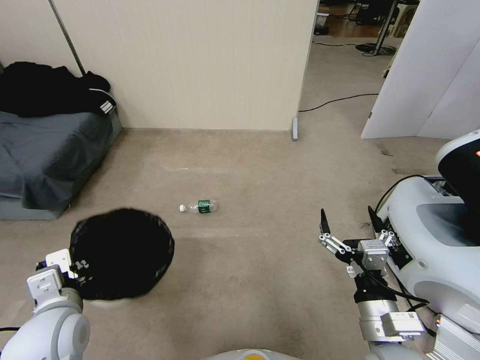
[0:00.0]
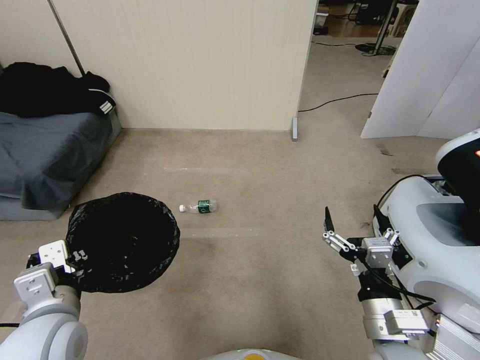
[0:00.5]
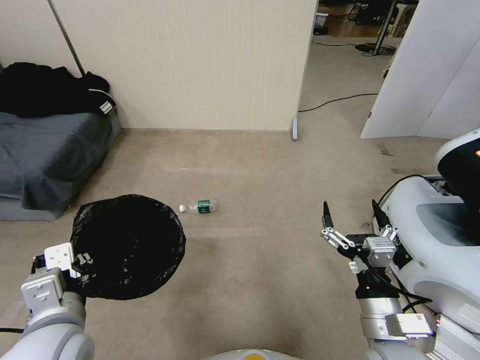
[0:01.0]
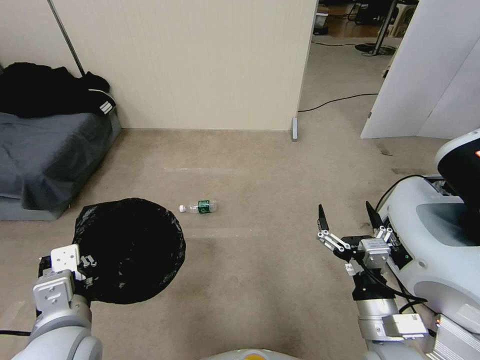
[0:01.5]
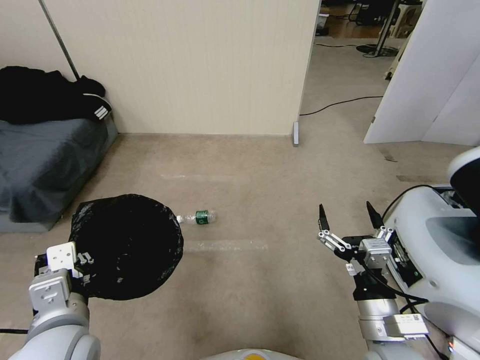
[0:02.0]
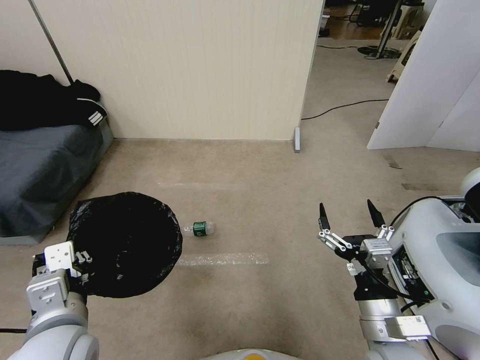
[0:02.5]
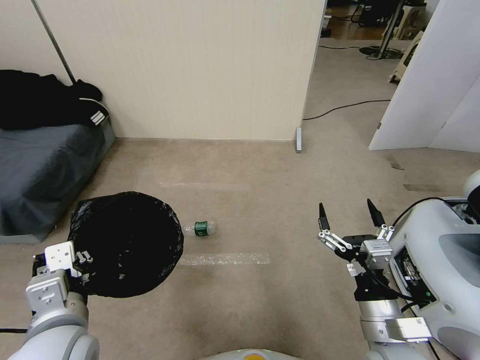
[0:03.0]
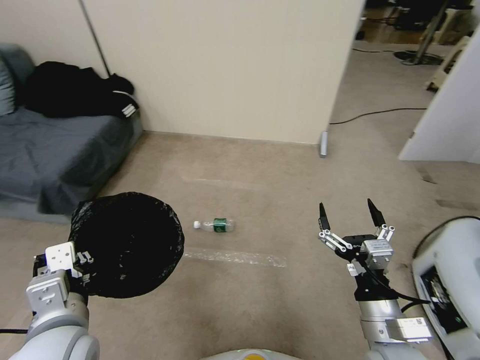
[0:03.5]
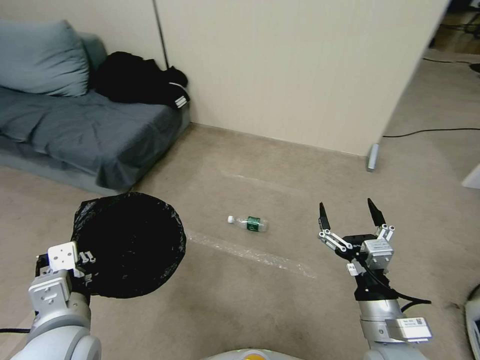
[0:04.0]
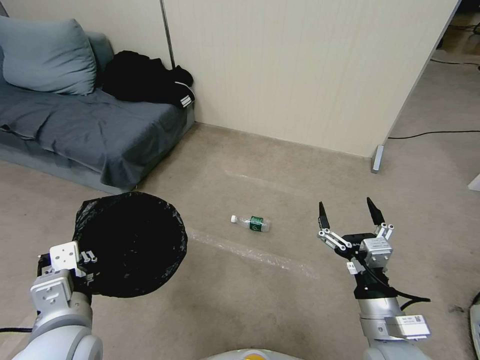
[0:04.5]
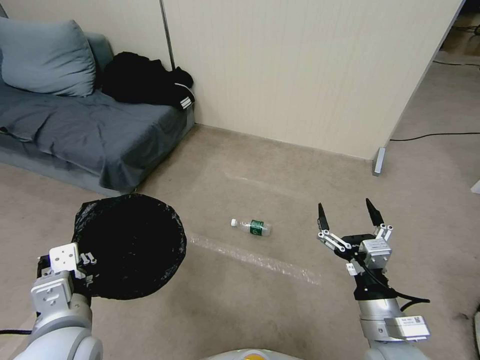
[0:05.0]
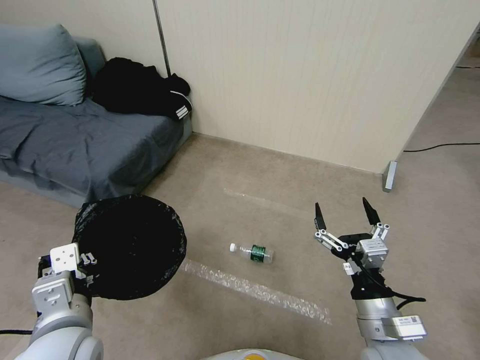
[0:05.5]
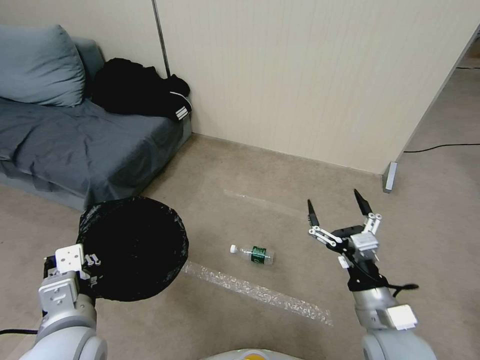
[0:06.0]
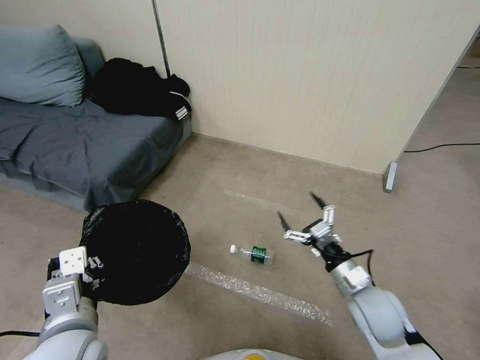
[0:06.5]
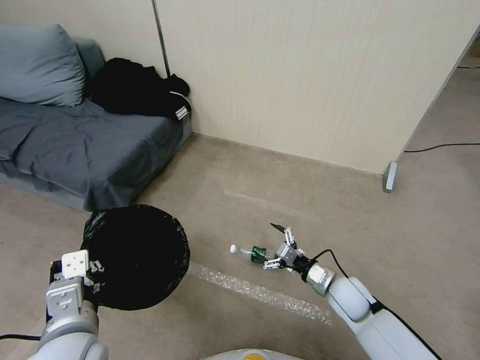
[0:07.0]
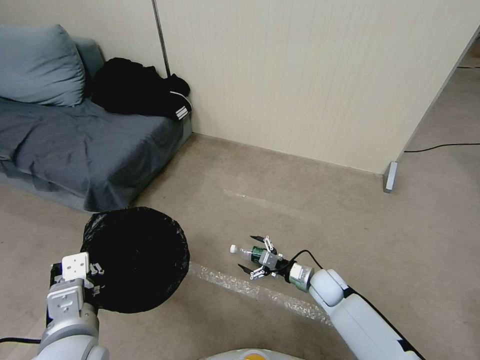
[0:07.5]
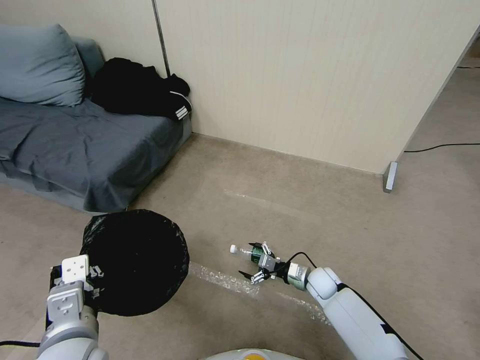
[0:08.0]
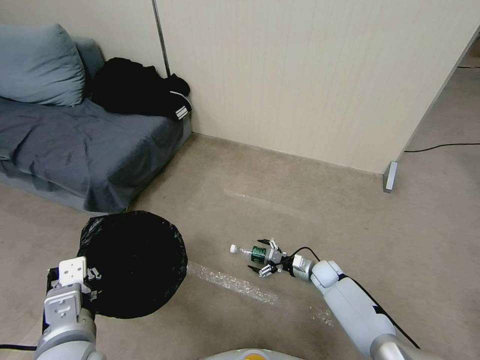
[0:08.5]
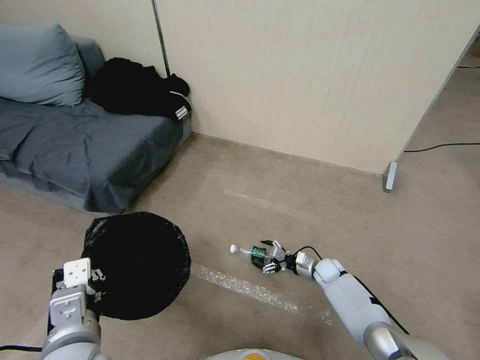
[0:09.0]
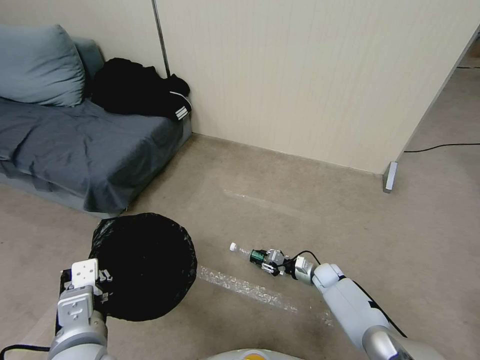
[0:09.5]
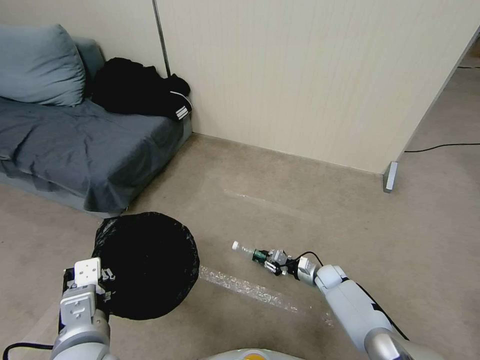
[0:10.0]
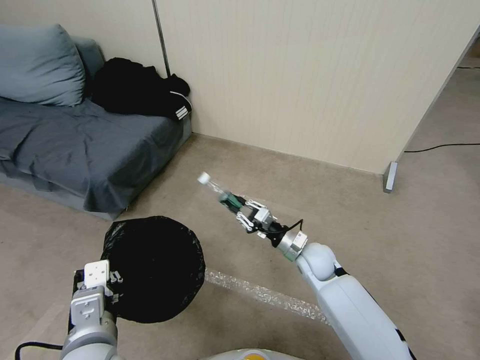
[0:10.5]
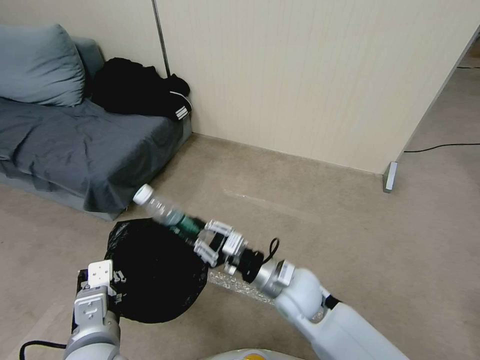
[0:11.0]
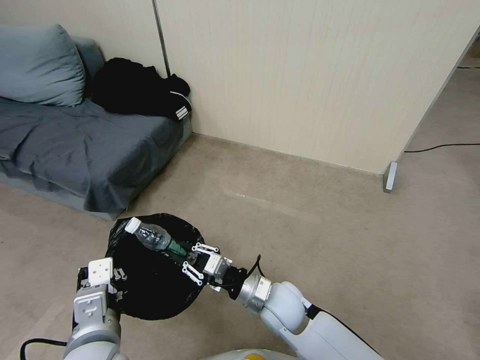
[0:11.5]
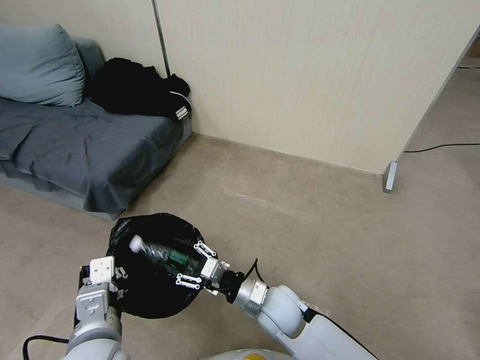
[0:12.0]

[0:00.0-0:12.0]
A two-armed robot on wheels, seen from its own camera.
Task of the whole recording: Pick up the trash bin, then pick up the garbage from the floor and place it into the trash bin.
0:00.0 to 0:02.0: The left gripper goes roughly 5 cm to the right.
0:06.0 to 0:08.0: The right gripper goes roughly 30 cm downward and forward.
0:08.0 to 0:10.0: The right gripper changes place by roughly 5 cm, and closes its fingers.
0:10.0 to 0:12.0: The right gripper travels to the left, upward and backward by about 30 cm, and opens its fingers.

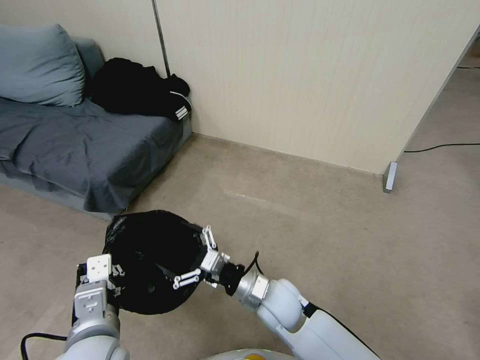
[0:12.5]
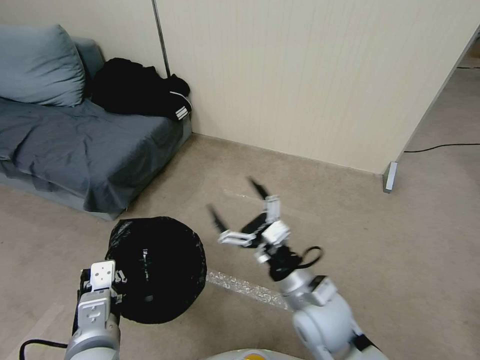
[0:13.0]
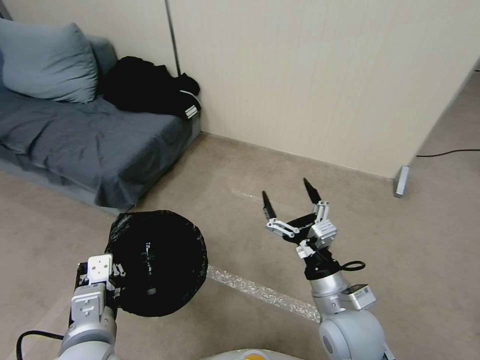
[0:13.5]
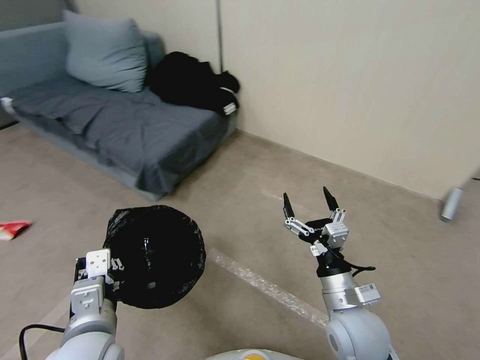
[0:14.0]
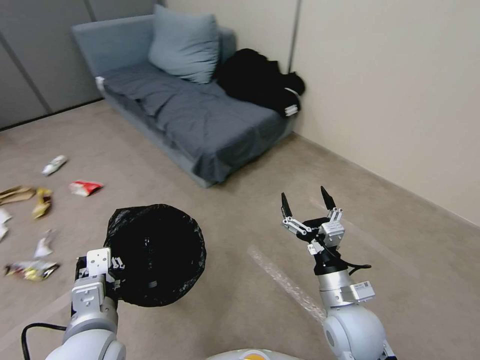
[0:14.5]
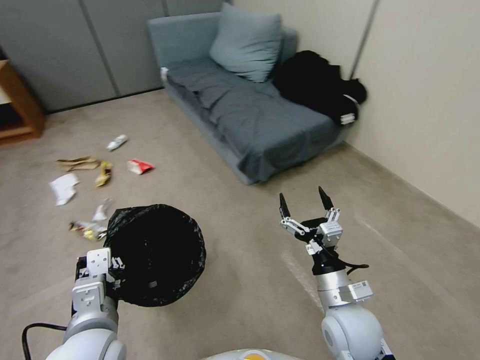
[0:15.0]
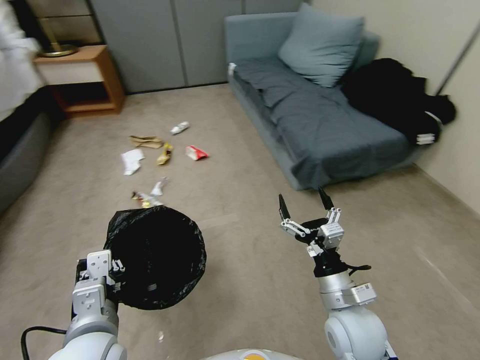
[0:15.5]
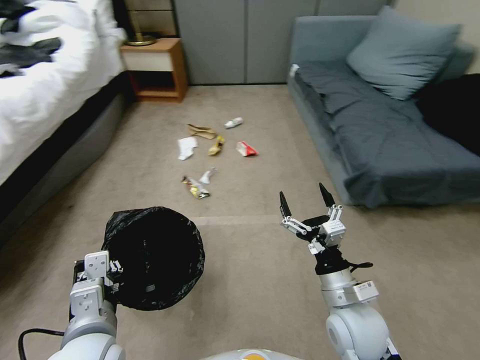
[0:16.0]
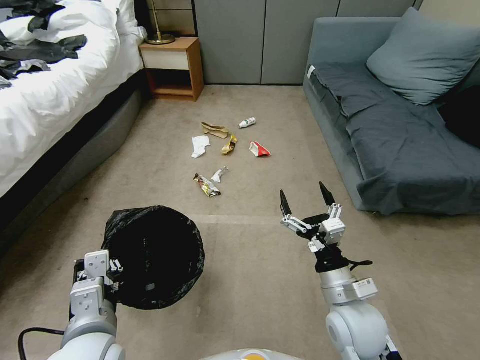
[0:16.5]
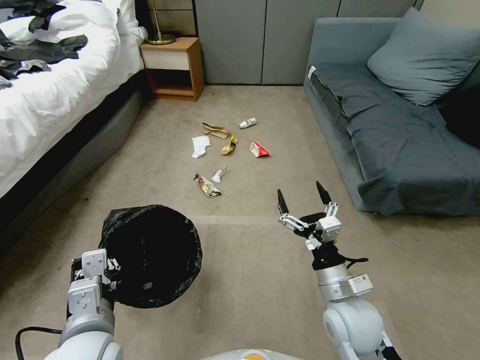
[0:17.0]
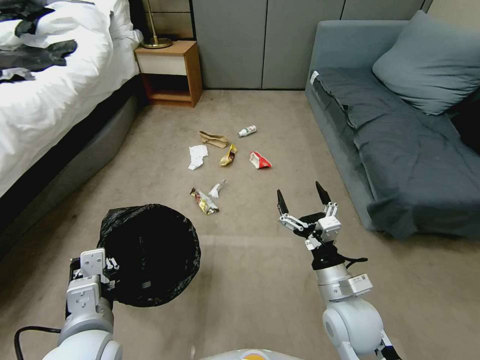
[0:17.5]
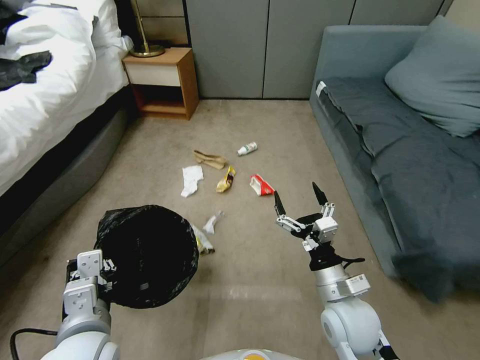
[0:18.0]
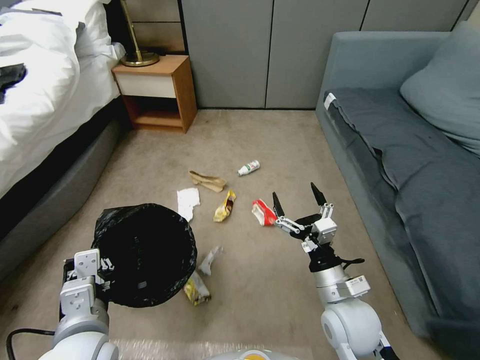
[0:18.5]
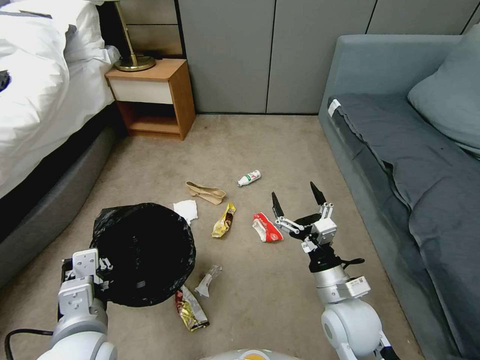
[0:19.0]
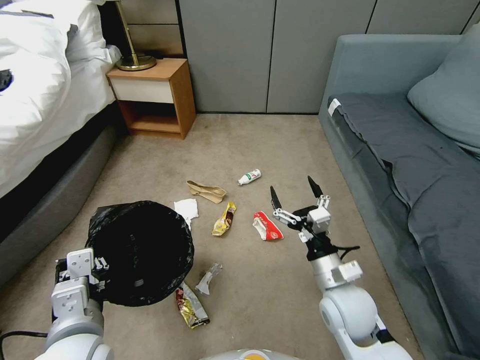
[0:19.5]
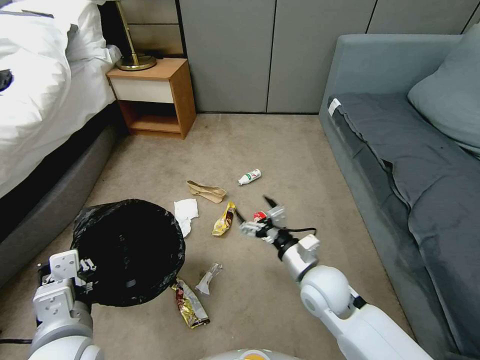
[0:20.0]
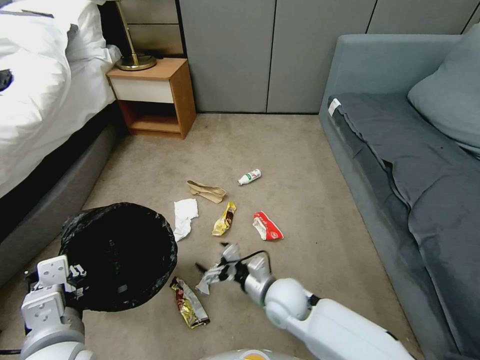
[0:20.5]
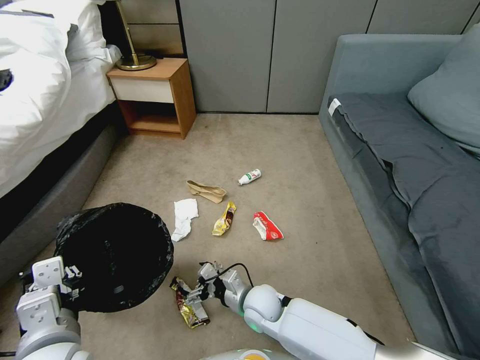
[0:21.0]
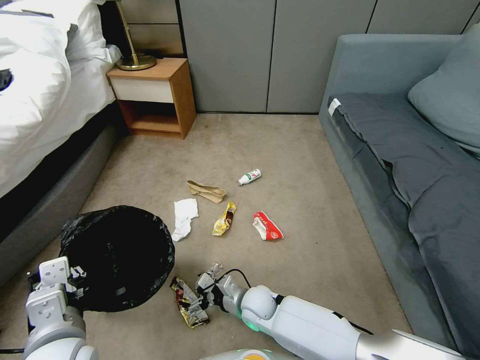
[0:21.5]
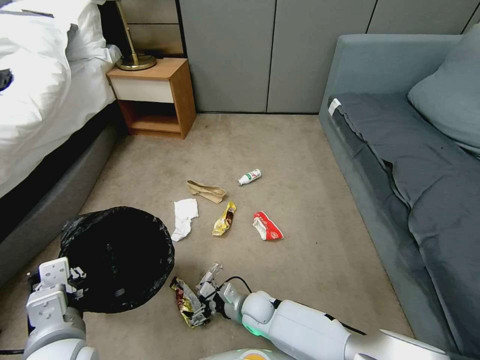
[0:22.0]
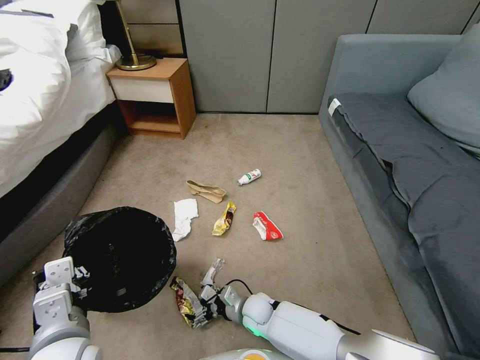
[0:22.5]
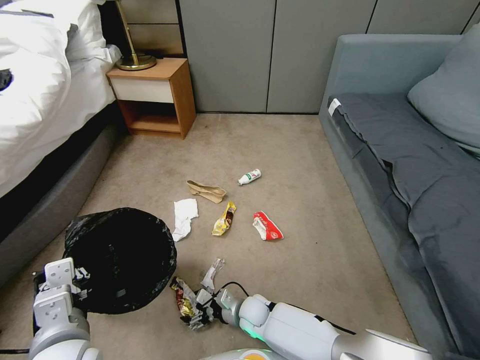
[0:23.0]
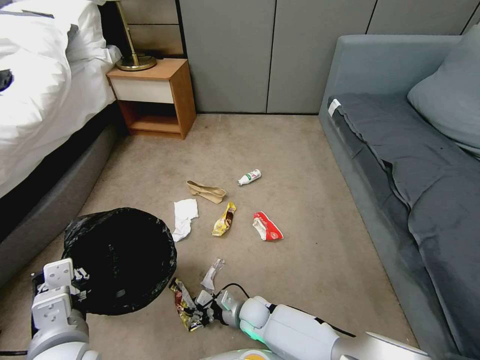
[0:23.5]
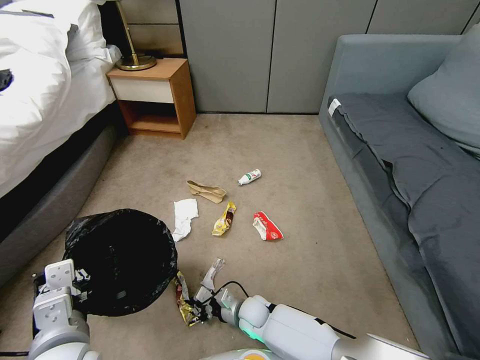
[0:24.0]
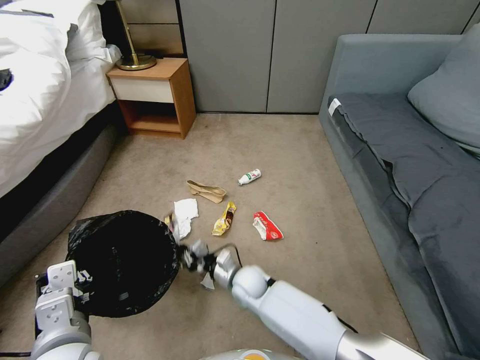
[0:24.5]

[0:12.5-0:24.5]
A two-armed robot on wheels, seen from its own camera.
Task of the whole recording: Pick up the trash bin, then pick up the garbage from the floor and place it into the trash bin.
0:12.5 to 0:14.5: The right gripper is displaced to the right and backward by approximately 15 cm.
0:18.5 to 0:20.5: The right gripper goes approximately 15 cm to the left, downward and forward.
0:20.5 to 0:22.5: The right gripper moves downward, about 15 cm.
0:22.5 to 0:24.5: The right gripper moves upward and forward, roughly 10 cm, and closes its fingers.

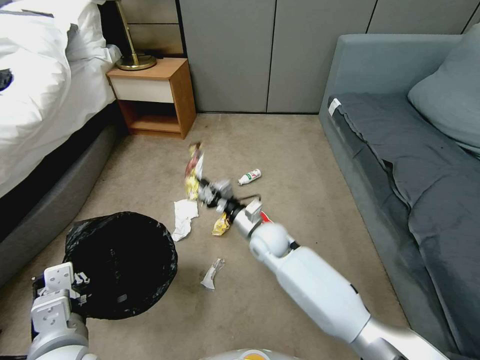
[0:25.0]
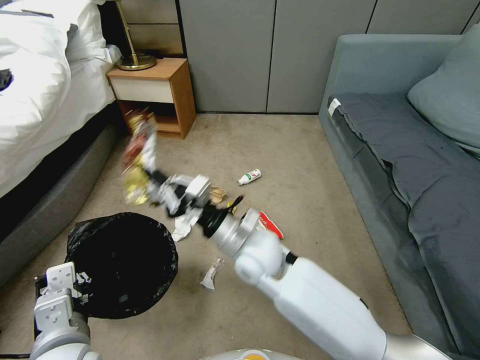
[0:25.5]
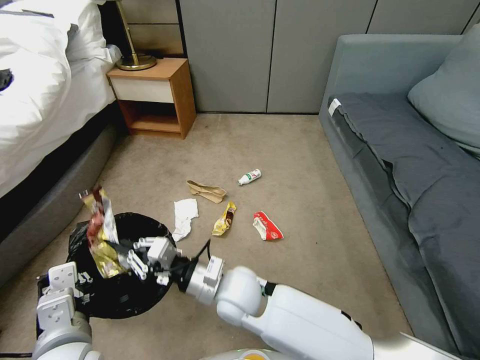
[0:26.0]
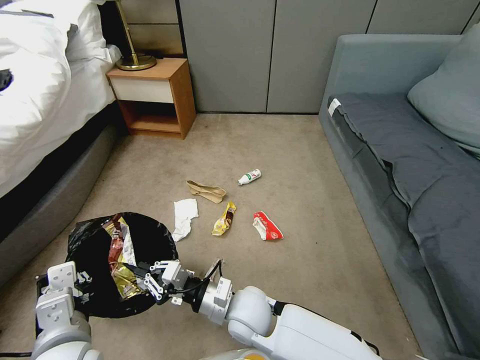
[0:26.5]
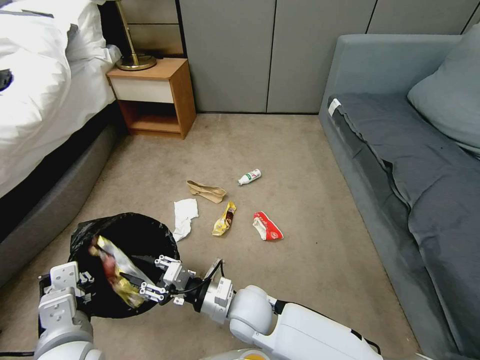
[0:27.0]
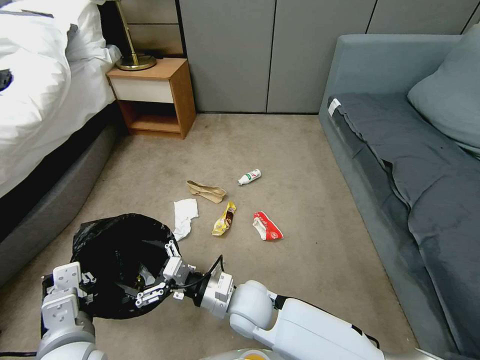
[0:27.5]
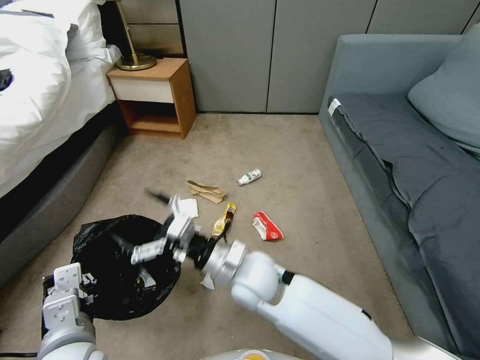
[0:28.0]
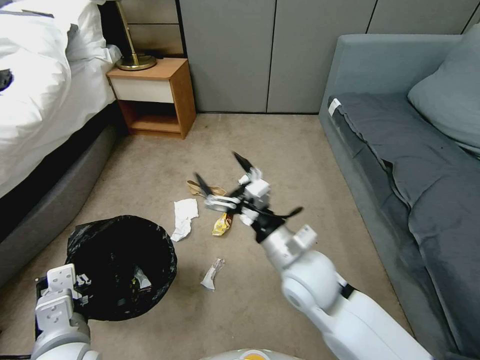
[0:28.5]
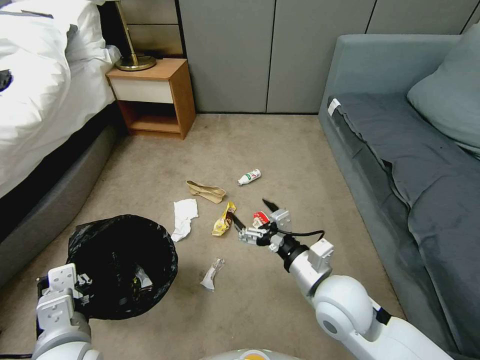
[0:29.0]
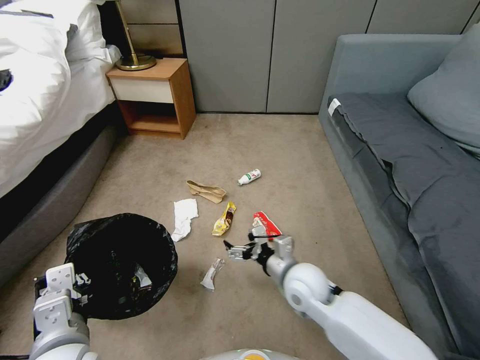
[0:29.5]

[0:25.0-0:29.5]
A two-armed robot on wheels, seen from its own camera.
Task of the whole recording: Pick up the trash bin, then pick up the garbage from the floor and place it into the trash bin.
0:25.0 to 0:27.0: The right gripper shifts about 15 cm backward, and opens its fingers.
0:27.0 to 0:29.5: The right gripper shifts about 15 cm to the right, and opens its fingers.
